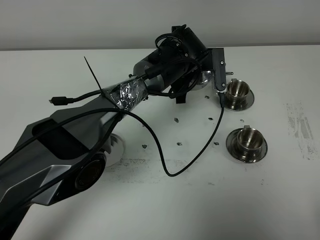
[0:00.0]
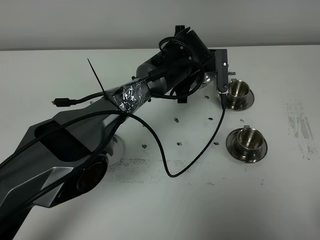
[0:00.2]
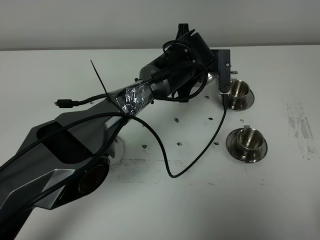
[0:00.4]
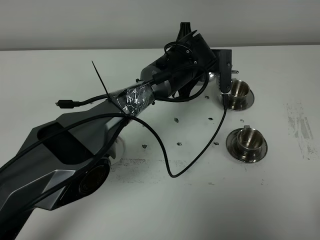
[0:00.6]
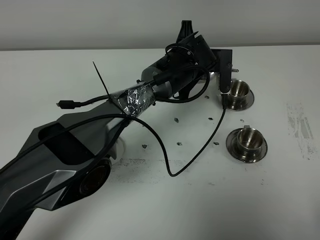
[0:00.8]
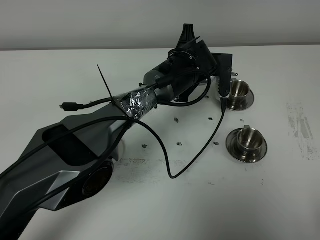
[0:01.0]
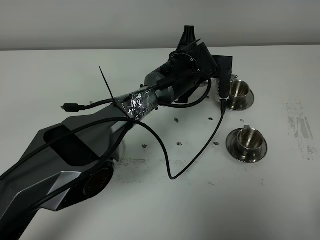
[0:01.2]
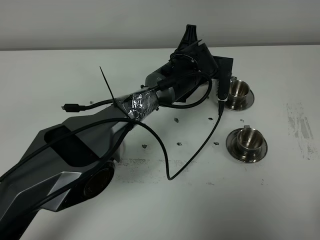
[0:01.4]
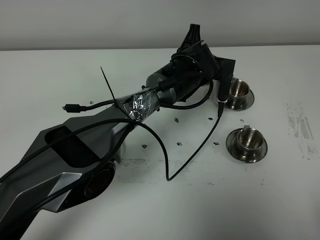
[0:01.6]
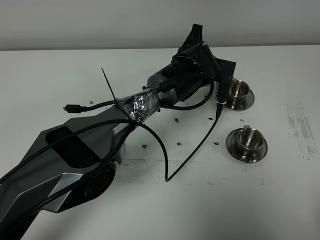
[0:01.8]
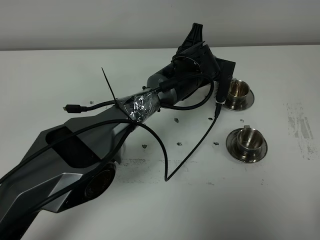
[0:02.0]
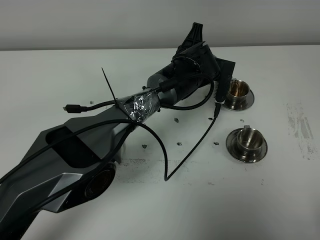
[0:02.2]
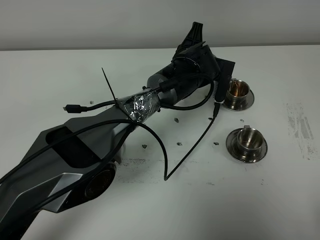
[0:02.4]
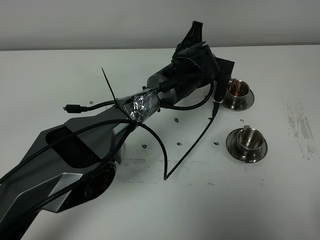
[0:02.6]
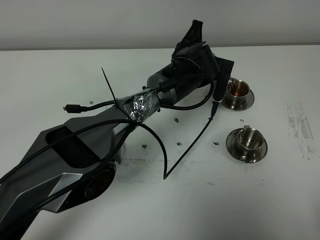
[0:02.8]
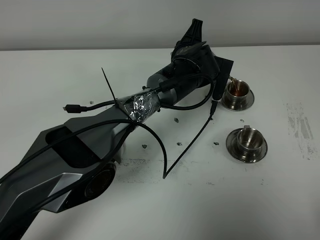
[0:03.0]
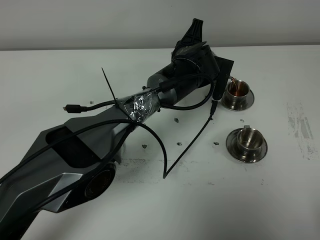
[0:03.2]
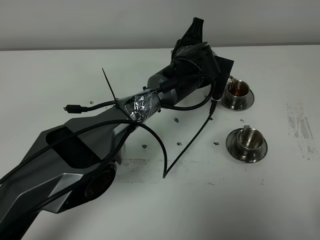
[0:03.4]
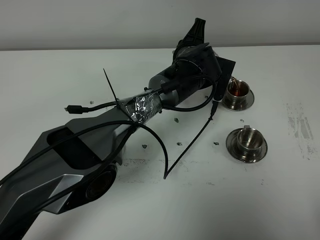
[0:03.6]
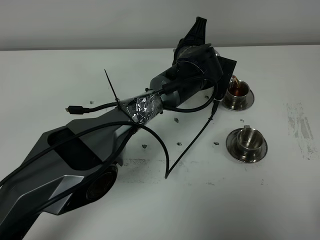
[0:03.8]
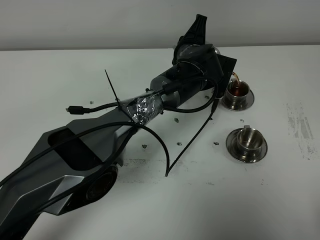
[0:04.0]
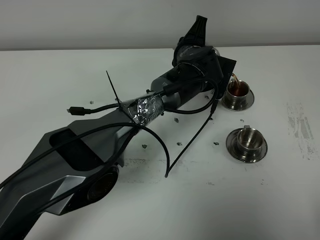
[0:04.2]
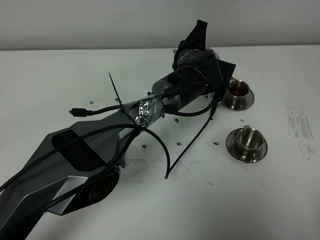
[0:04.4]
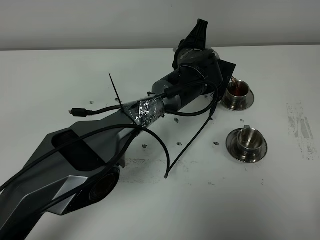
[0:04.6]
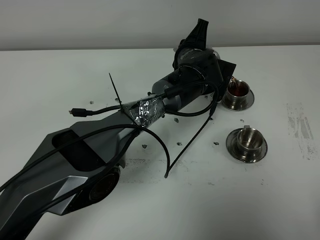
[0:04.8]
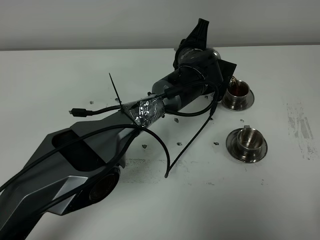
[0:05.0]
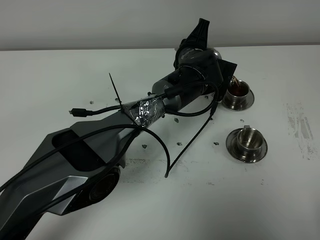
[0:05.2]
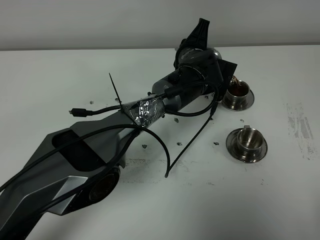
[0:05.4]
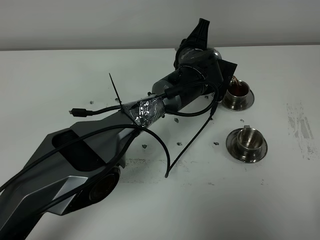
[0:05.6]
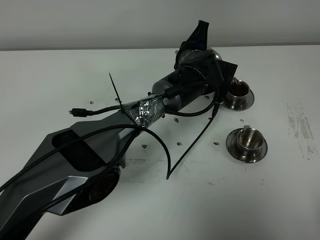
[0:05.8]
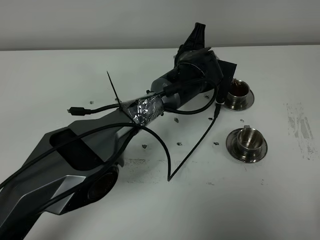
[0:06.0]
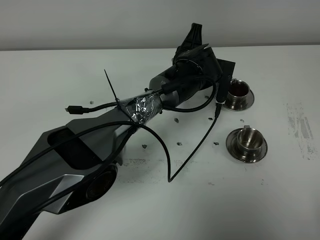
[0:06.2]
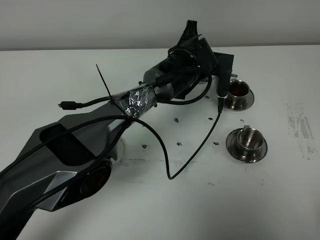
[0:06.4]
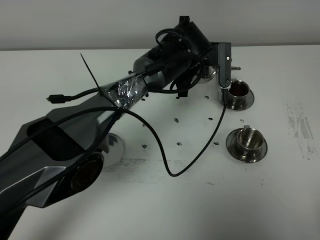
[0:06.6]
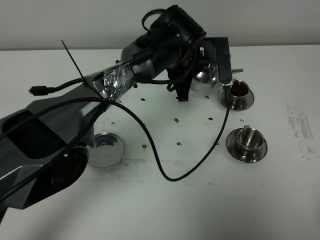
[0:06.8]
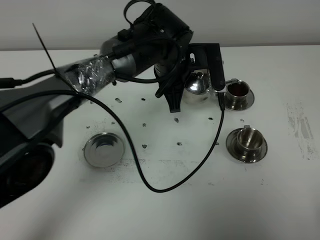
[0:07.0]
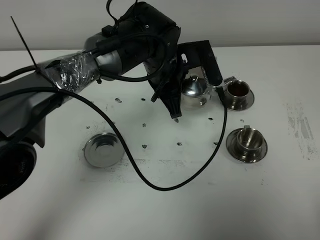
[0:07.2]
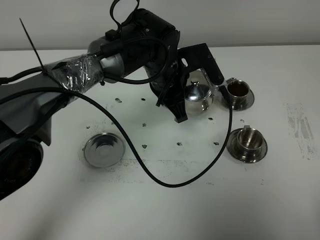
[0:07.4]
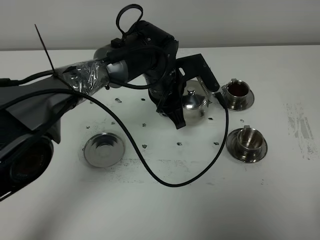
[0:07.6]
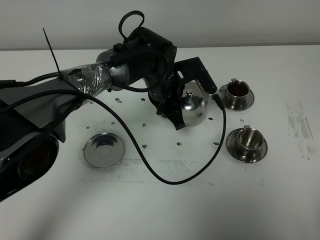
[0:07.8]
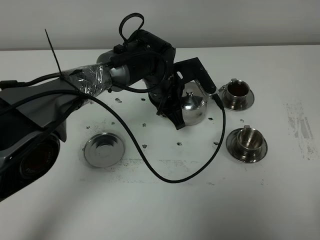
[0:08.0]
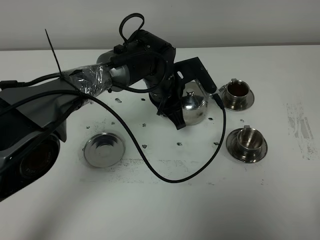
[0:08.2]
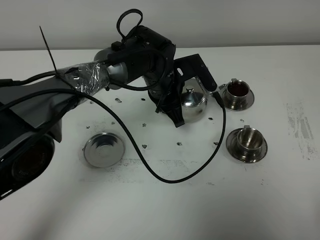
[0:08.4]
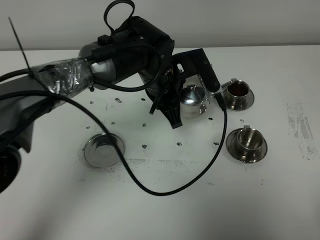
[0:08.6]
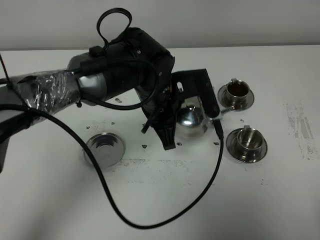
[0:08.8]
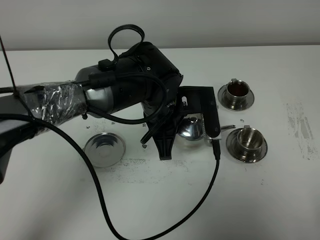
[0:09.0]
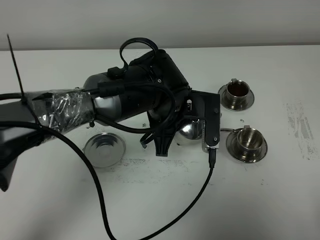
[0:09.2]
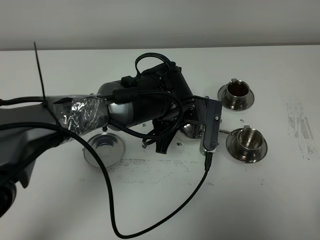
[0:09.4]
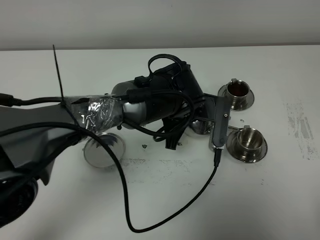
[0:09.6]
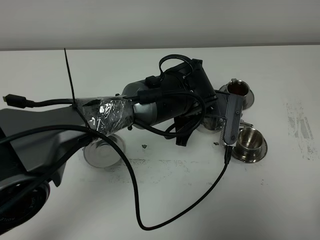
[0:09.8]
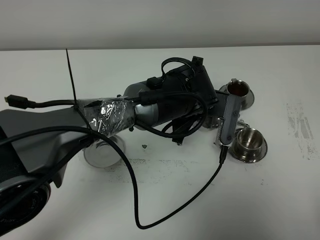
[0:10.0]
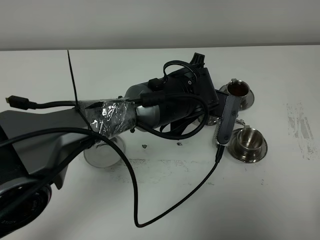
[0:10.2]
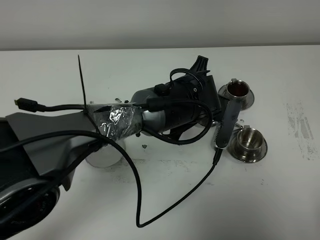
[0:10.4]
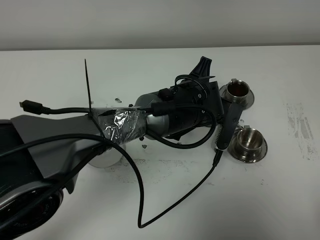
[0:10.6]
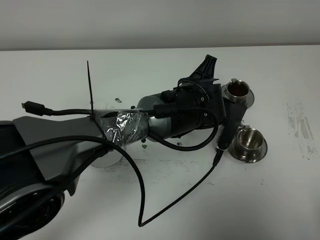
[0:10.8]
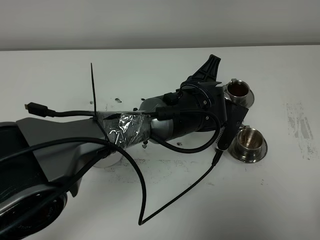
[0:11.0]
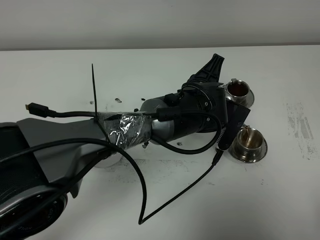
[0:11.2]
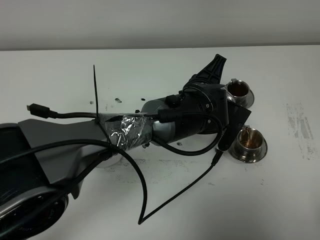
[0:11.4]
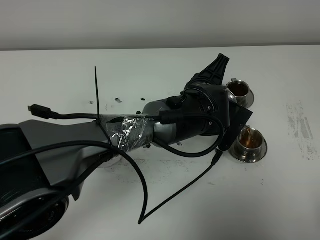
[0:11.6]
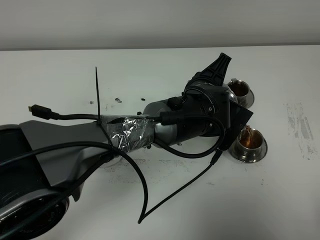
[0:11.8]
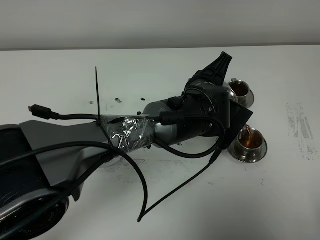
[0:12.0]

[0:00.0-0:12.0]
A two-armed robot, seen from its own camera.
Task of the whole recording: grasp the stainless steel teapot and pour the tea into the two stainless steel teacups one by one, put the stainless steel teapot back in its original place.
0:00.0 to 0:01.6: The grippers make only small movements.
0:01.6 to 0:03.0: The grippers stay close to where they were, moving slightly.
0:03.0 to 0:04.4: Neither gripper changes place.
0:04.4 to 0:06.0: There are only small adjustments of the grippers.
0:06.0 to 0:07.6: The left gripper shifts roughly 5 cm to the left.
0:07.6 to 0:09.0: The left gripper is displaced backward by about 10 cm.
0:09.0 to 0:10.4: The left gripper moves to the right, approximately 5 cm.
0:10.4 to 0:12.0: There are only small adjustments of the grippers.

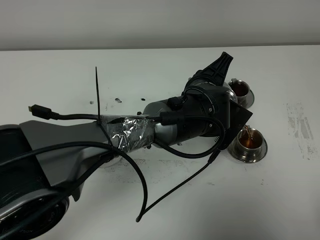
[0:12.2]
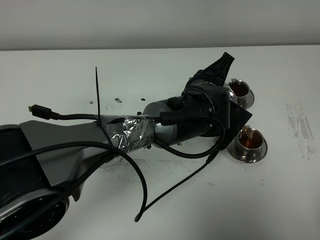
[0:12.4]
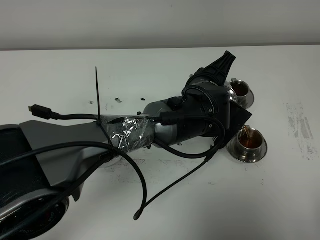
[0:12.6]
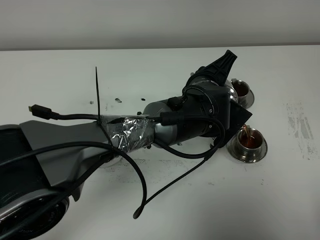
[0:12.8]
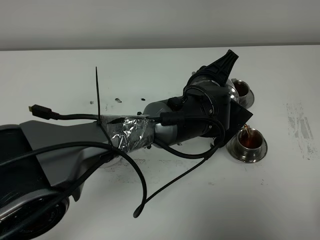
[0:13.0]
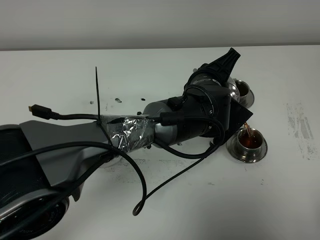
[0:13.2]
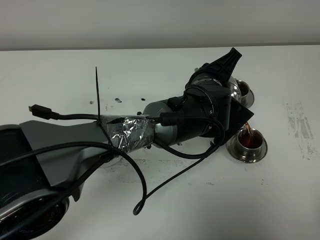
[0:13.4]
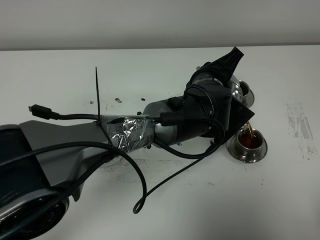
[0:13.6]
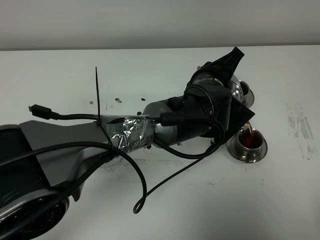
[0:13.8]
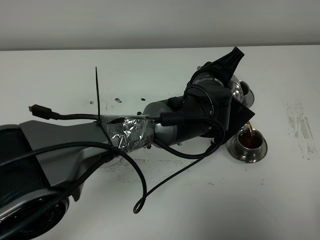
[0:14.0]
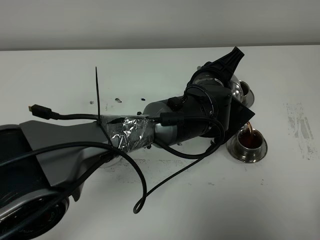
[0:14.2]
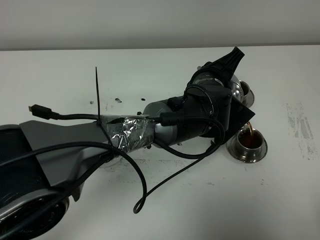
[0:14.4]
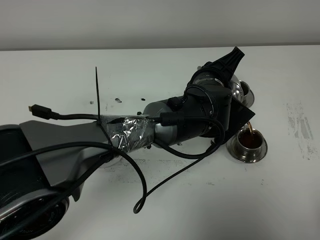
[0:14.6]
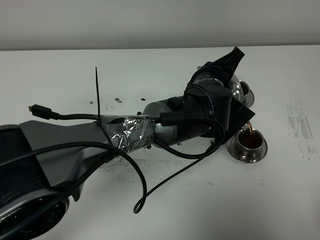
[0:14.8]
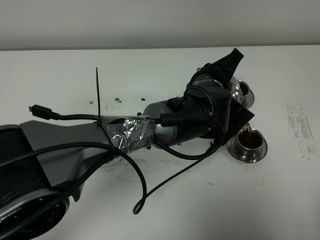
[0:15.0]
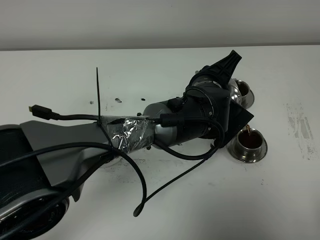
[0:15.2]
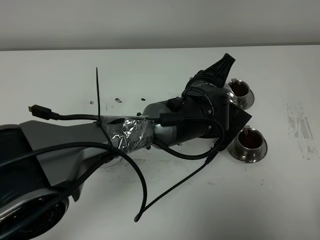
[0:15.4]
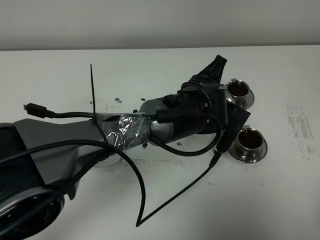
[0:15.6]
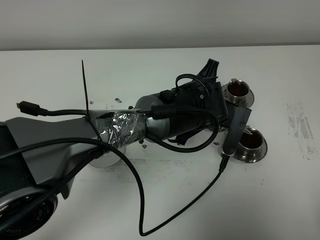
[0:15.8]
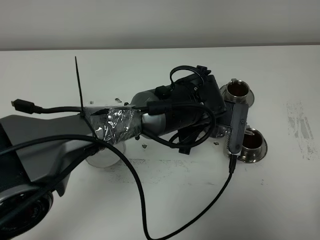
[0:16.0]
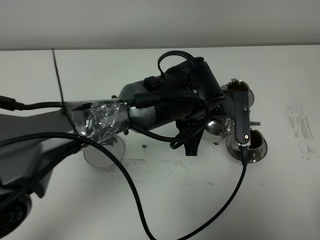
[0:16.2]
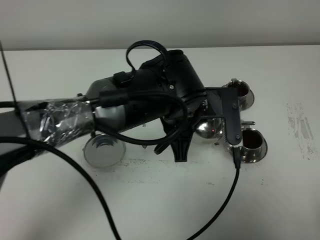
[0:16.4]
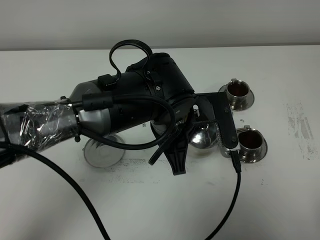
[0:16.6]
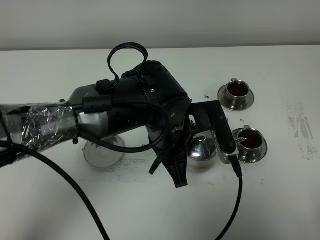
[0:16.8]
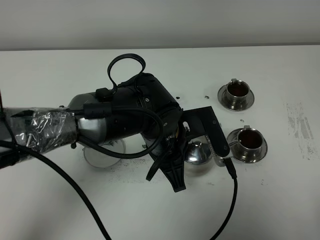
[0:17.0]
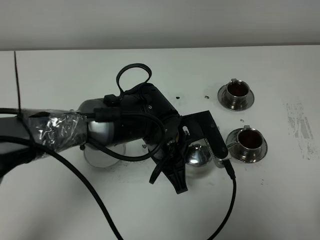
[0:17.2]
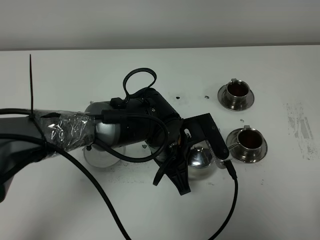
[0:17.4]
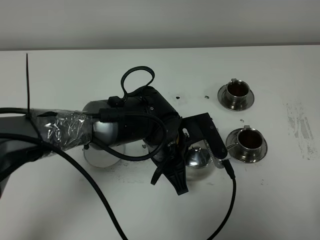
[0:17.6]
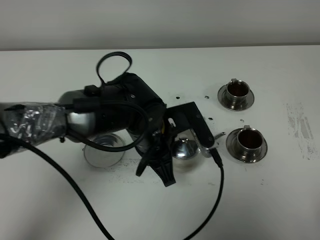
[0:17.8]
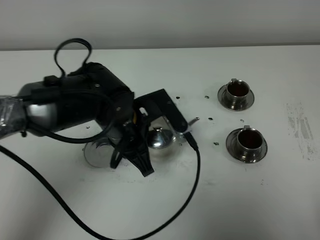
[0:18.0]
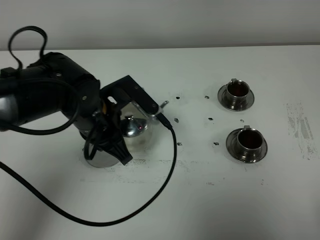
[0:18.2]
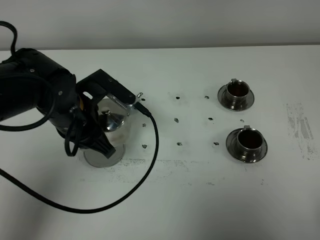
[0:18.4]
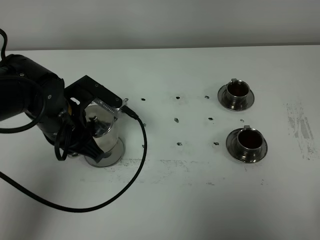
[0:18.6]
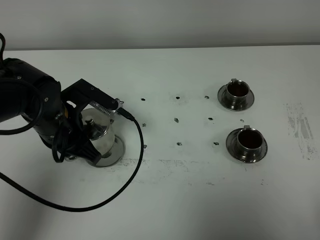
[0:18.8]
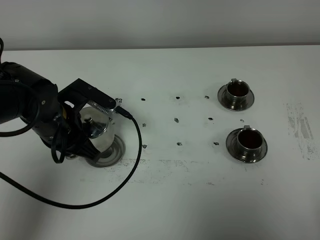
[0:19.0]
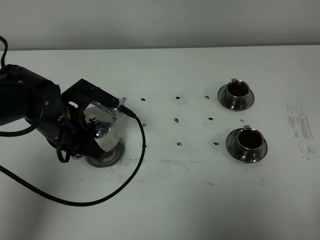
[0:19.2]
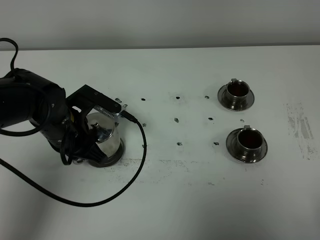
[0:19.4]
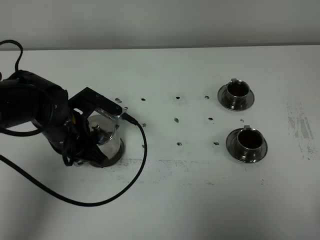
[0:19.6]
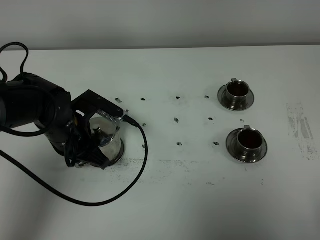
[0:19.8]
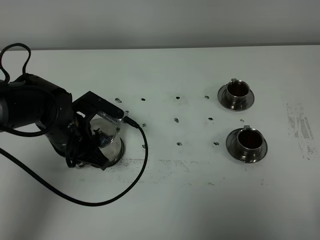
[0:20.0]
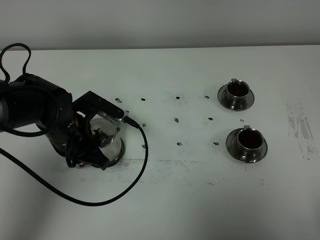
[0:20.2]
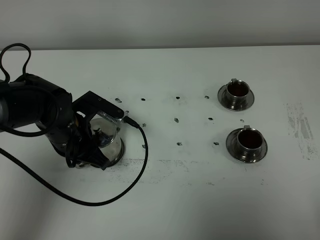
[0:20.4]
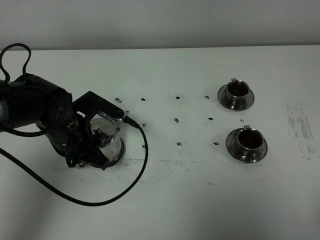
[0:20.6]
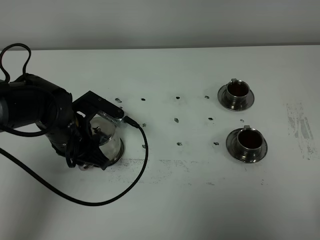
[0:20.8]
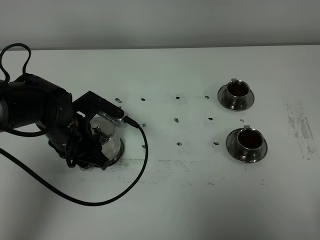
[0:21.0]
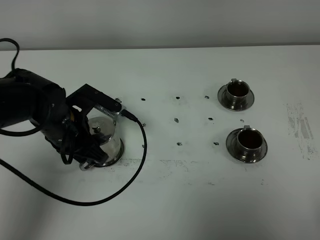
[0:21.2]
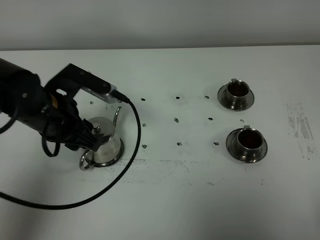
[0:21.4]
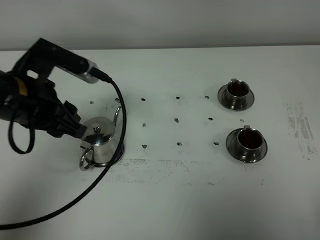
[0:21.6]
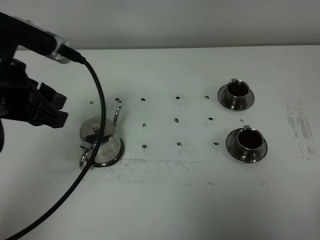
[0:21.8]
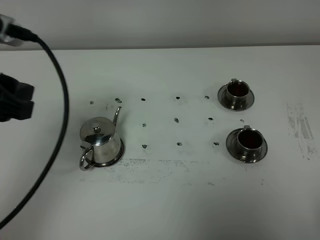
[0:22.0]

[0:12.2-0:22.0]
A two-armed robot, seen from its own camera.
Task of the whole recording: grasp the stainless steel teapot and pour the tea into the two stainless steel teacups one by one, put the stainless steel teapot back in its original place.
Step, 0:12.2 to 0:16.0: Pour tea into the teacup with the left gripper.
0:12.2 to 0:13.6: The grippers stay close to where they were, moving slightly.
0:13.6 to 0:15.0: Both grippers stay about where they are.
0:15.0 to 0:16.4: The left gripper heads to the left, covering some 5 cm.
0:16.4 to 0:17.8: The left gripper travels to the left by approximately 5 cm.
0:17.8 to 0:19.2: The left gripper is displaced to the left by some 15 cm.
0:19.2 to 0:20.6: The grippers move only a little.
0:20.6 to 0:22.0: The left gripper goes about 25 cm upward and backward, and opens.
